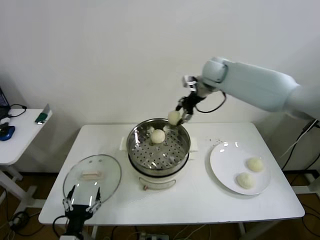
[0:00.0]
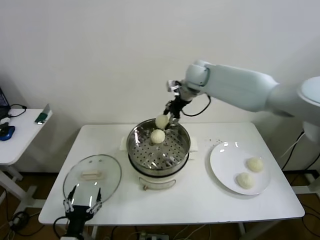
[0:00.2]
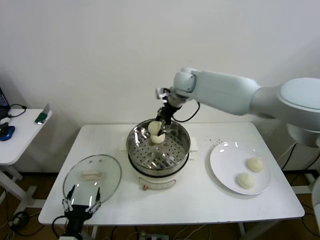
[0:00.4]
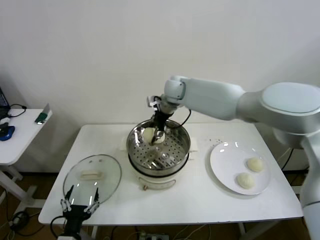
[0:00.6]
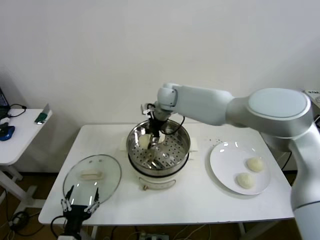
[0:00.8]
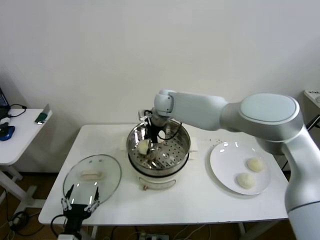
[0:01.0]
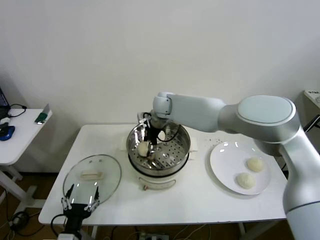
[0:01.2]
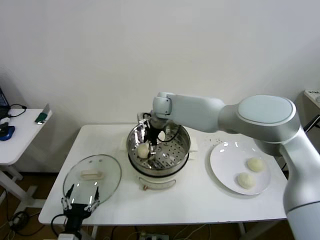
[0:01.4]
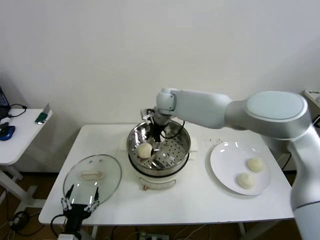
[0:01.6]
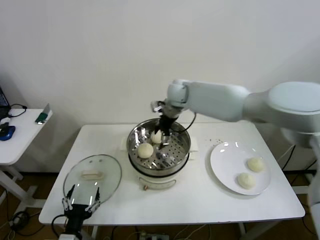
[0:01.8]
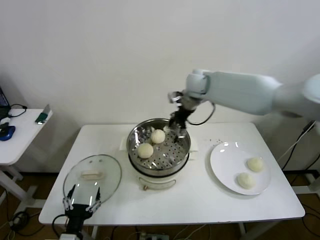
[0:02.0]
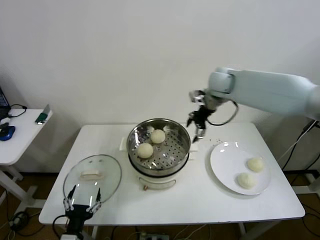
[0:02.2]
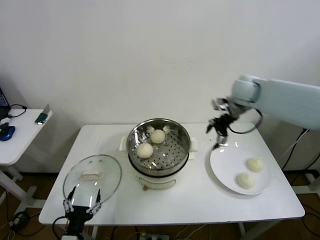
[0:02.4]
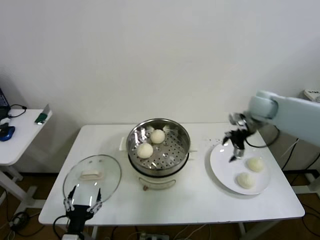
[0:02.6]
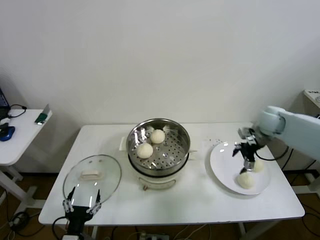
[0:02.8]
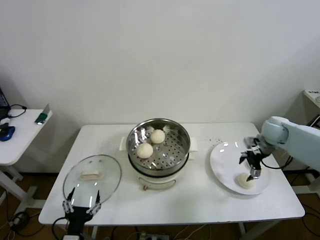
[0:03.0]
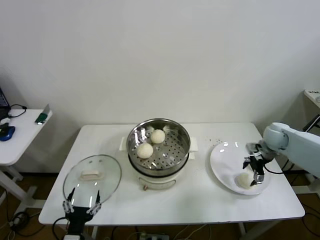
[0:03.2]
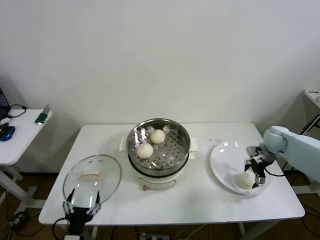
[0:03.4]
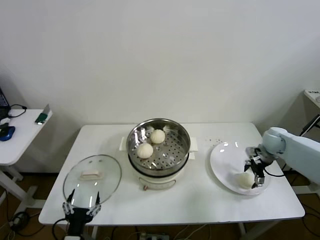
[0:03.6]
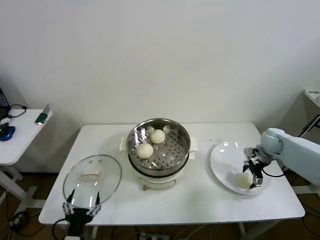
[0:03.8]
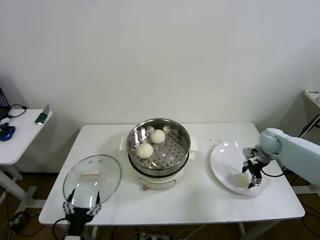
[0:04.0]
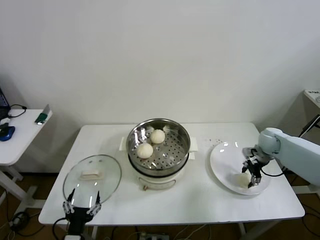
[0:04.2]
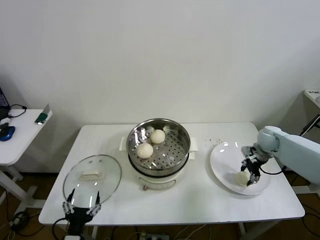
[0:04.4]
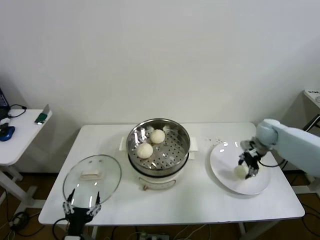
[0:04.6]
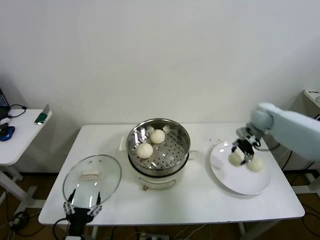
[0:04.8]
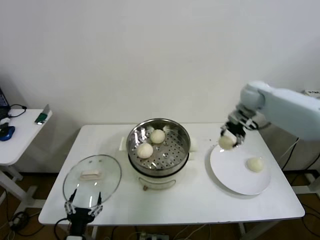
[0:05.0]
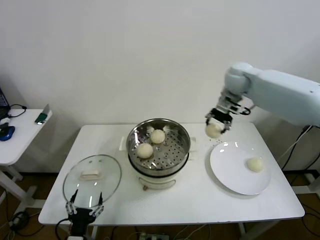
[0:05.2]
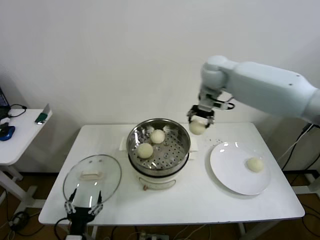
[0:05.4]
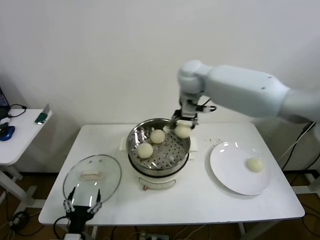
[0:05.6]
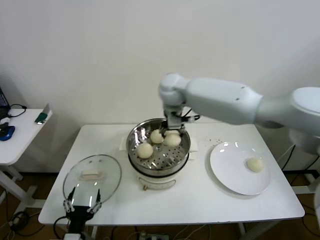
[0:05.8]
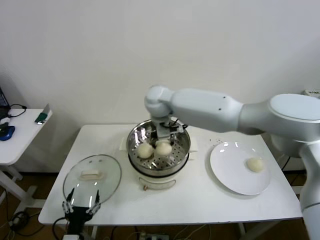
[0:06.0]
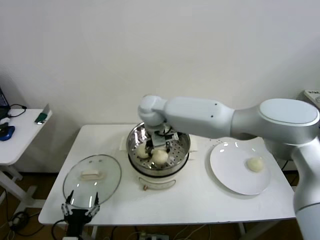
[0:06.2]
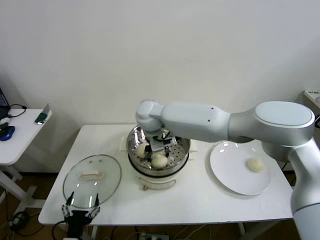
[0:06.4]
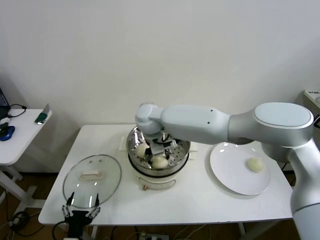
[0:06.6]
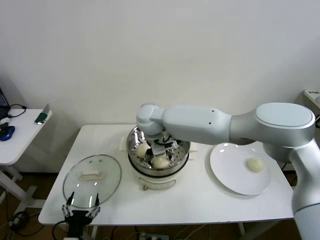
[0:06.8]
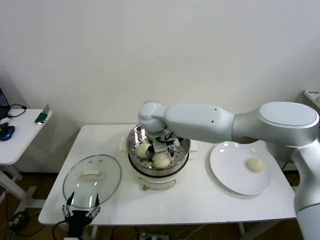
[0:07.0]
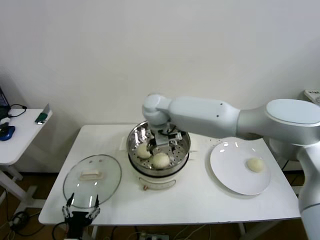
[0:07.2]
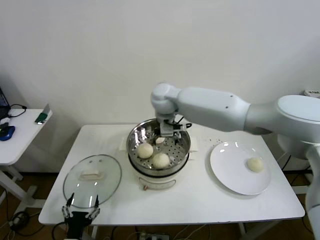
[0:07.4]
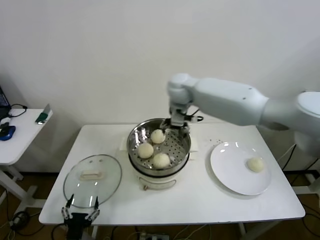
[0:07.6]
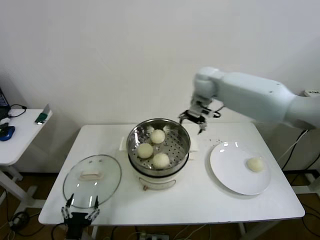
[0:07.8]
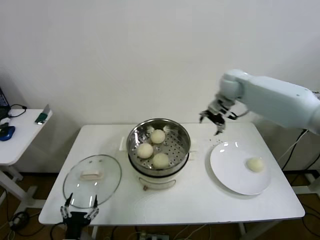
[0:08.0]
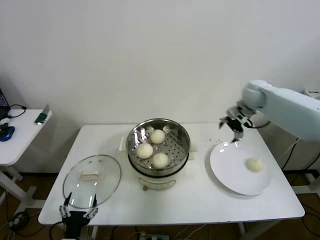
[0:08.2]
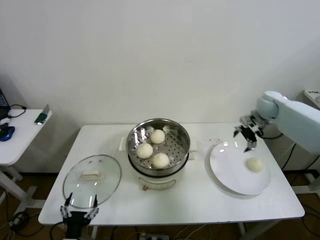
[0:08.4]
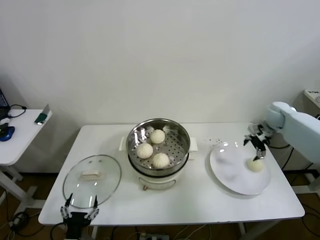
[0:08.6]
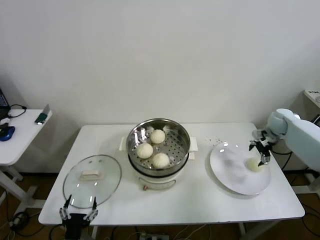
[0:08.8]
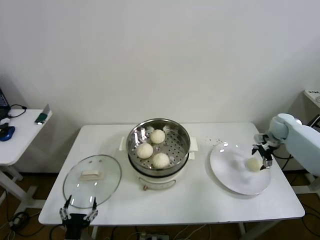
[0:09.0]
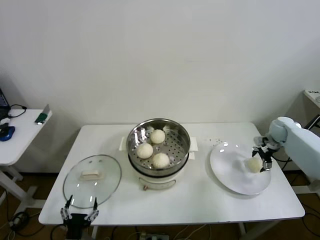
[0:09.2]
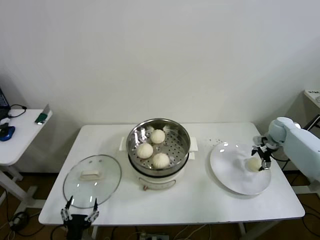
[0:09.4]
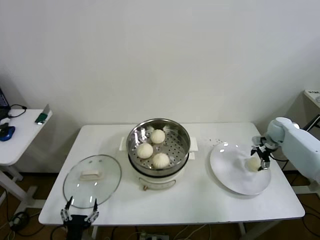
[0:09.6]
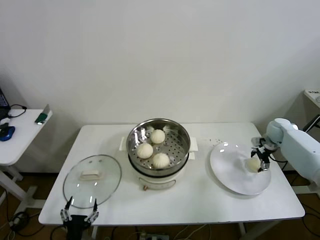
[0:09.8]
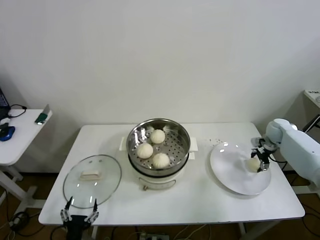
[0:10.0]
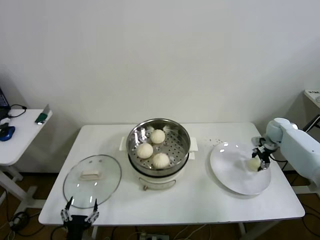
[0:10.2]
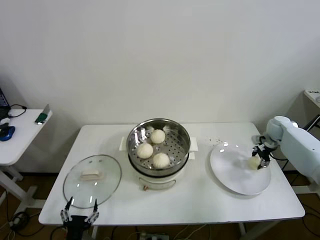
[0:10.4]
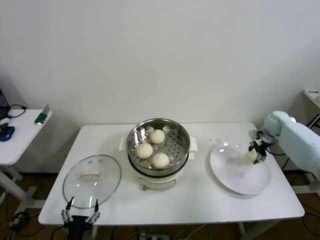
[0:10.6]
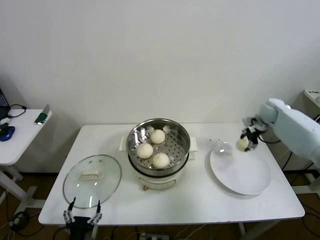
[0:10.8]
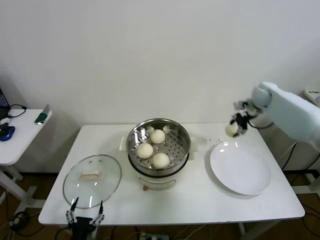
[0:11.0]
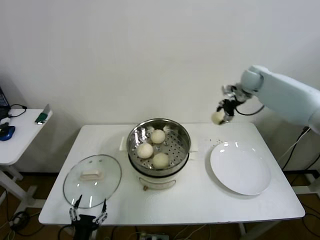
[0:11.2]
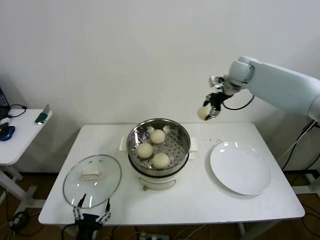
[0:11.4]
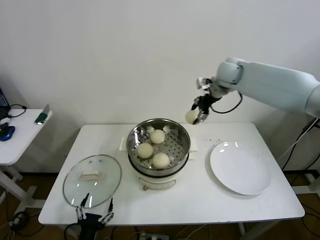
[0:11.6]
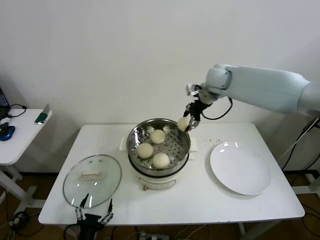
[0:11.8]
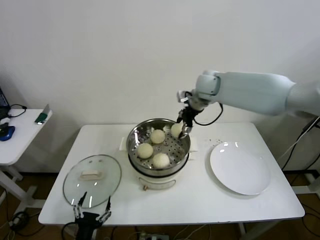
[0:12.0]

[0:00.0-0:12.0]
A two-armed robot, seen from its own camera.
Step, 0:00.0 to 0:01.6: Place the baozi on the steamer with right gripper.
Step, 0:01.8 to 0:04.0: Grasp the baozi in the plate with right gripper.
Step, 0:04.2 to 0:07.2: Place the baozi on the steamer with right gripper.
Step, 0:07.4 to 0:10.0: Grasp the baozi in the plate with right gripper.
0:00.0 to 0:01.6: The right gripper is displaced to the left and downward by roughly 15 cm, and opens its fingers.
0:01.6 to 0:03.0: The right gripper shifts approximately 40 cm to the right.
0:03.0 to 0:04.4: The right gripper moves downward, some 5 cm, and closes up.
0:04.4 to 0:06.0: The right gripper is displaced to the left and upward by roughly 50 cm.
0:06.0 to 0:07.6: The right gripper is displaced to the right by roughly 10 cm, and opens.
0:07.6 to 0:09.0: The right gripper heads to the right and downward, covering some 40 cm.
0:09.0 to 0:10.4: The right gripper closes.
0:10.4 to 0:12.0: The right gripper moves to the left and upward, approximately 40 cm.

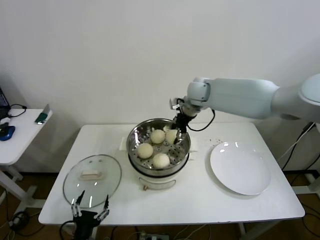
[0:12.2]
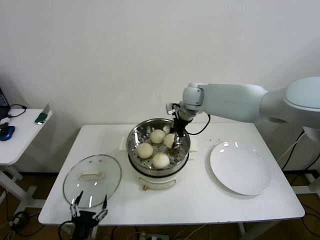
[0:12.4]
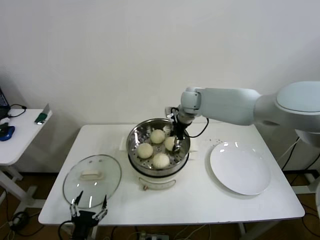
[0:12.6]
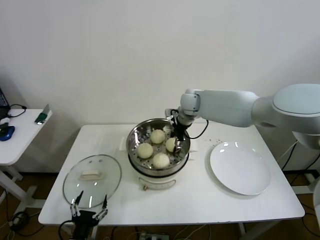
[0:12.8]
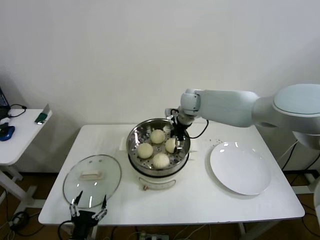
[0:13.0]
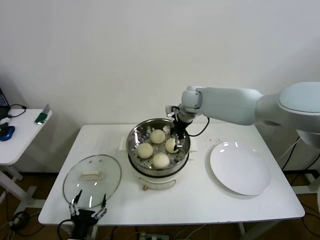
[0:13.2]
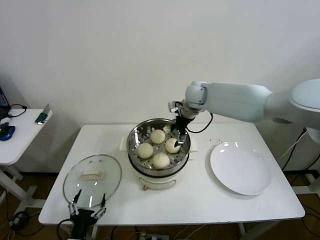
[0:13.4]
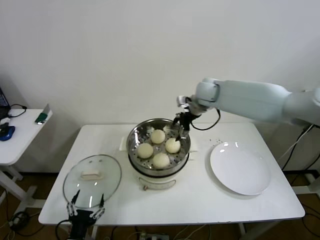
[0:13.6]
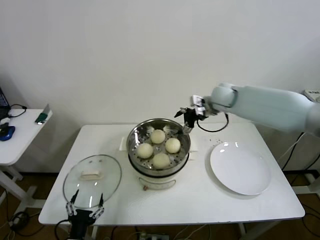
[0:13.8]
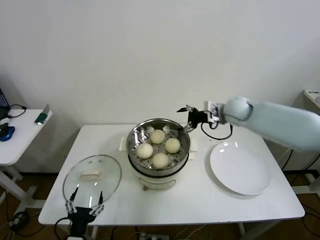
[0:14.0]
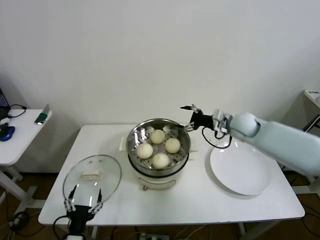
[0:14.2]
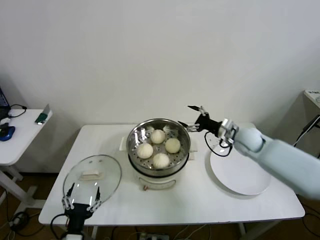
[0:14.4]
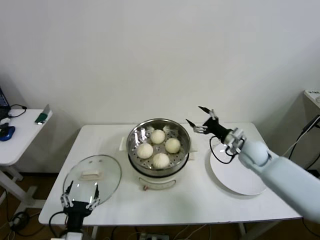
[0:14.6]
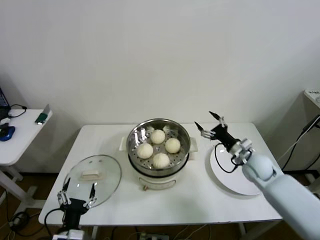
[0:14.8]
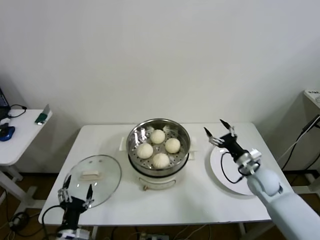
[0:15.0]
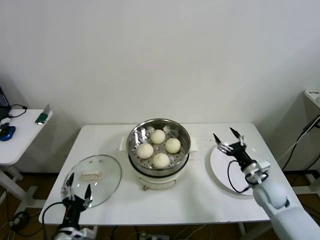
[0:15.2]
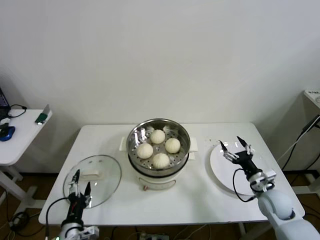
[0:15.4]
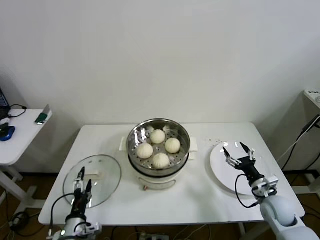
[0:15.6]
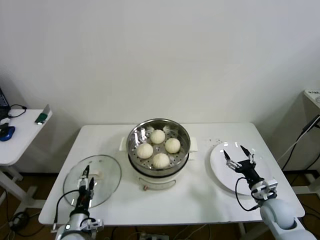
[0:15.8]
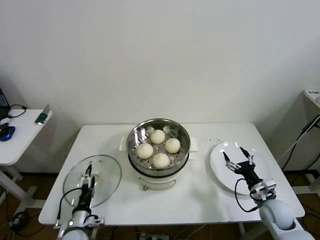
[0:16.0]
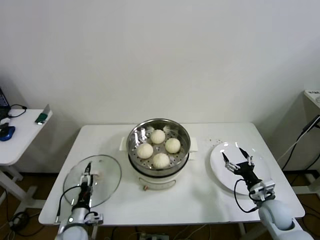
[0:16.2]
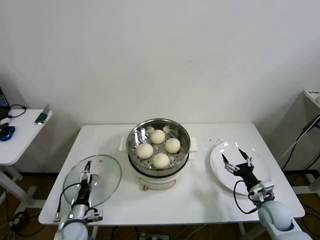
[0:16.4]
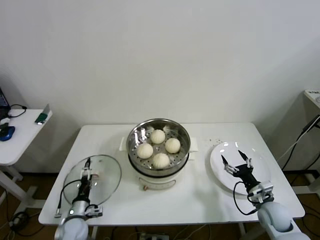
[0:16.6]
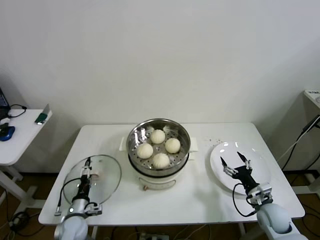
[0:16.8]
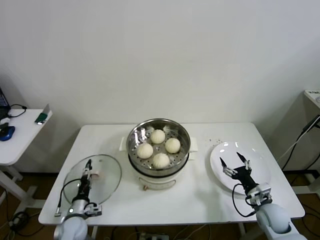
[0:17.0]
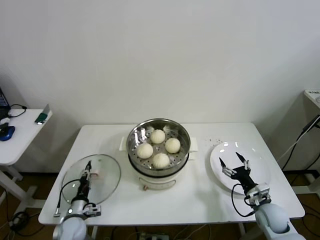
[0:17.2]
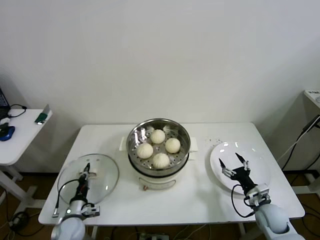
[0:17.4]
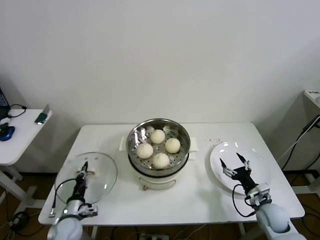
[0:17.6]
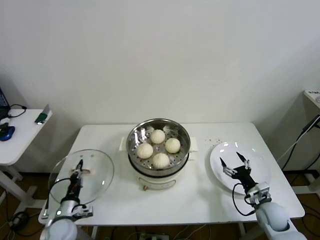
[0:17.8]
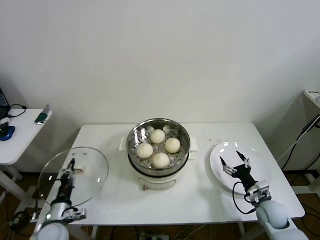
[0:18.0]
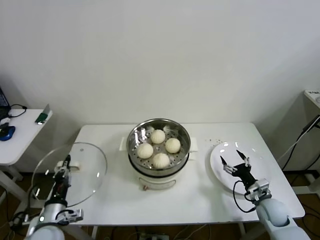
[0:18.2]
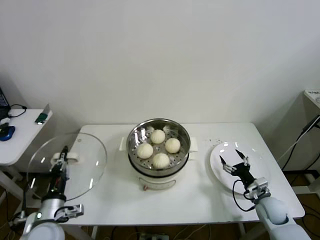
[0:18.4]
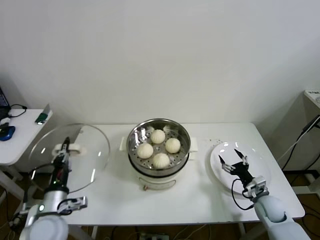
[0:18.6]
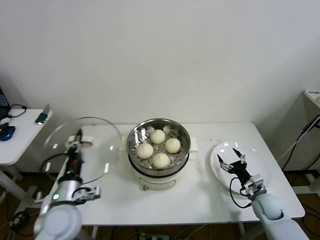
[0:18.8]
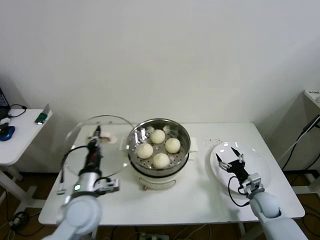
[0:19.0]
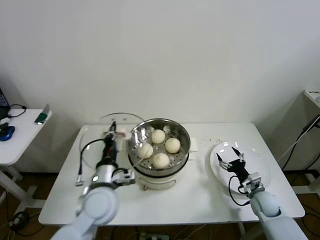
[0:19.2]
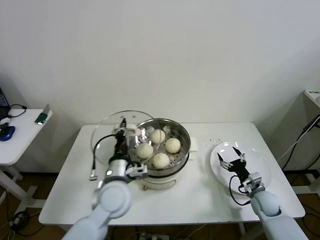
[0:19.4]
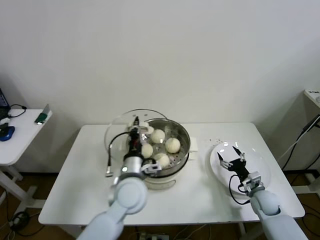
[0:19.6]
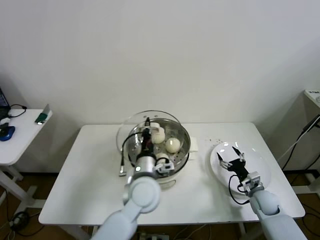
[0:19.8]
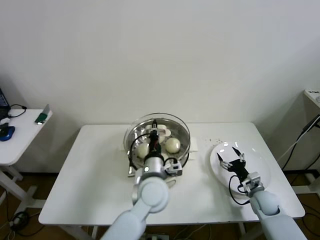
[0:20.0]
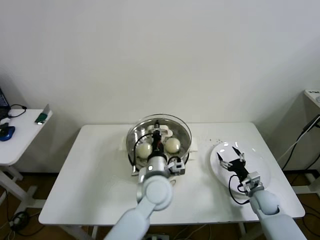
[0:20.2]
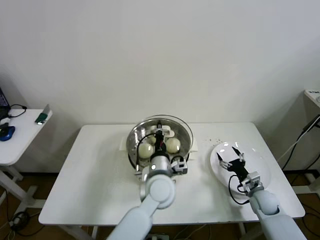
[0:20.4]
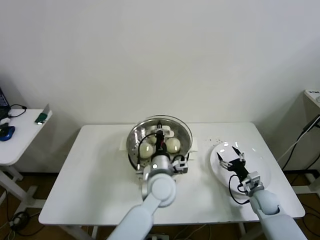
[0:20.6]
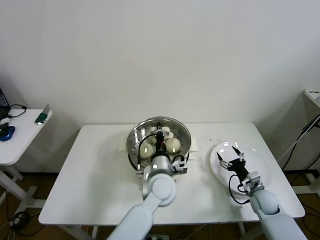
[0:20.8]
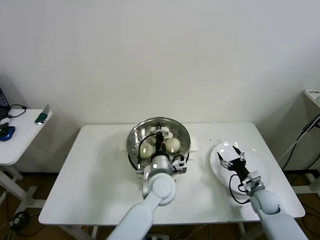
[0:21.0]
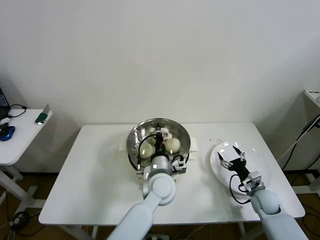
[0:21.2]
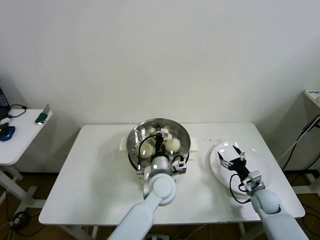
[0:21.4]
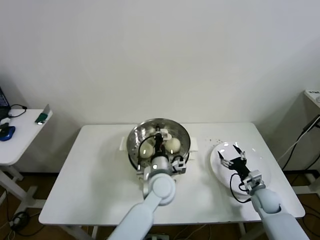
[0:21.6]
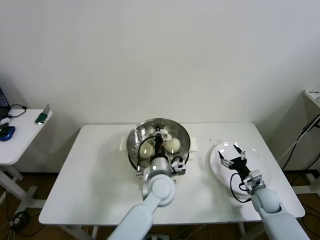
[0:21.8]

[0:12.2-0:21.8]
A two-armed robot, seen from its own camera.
Step, 0:13.6 to 0:17.4: Grasp the pot lid with left gripper.
0:12.2 to 0:13.8: The right gripper heads to the right, covering about 10 cm, and opens.
0:13.8 to 0:15.4: The right gripper shifts roughly 40 cm downward, backward and to the right.
0:15.4 to 0:17.0: The right gripper goes roughly 5 cm downward, while the left gripper moves forward and downward, about 15 cm.
0:17.0 to 0:18.6: The left gripper travels upward by roughly 20 cm, and closes up.
0:18.6 to 0:20.2: The left gripper heads to the right, covering some 30 cm.
0:20.2 to 0:21.8: The grippers stay close to where they were, moving slightly.
